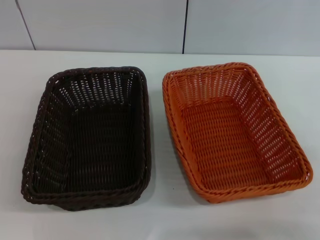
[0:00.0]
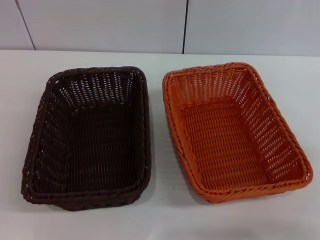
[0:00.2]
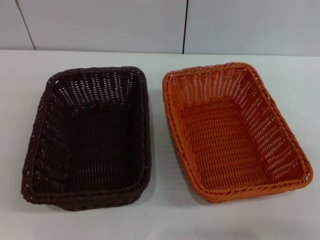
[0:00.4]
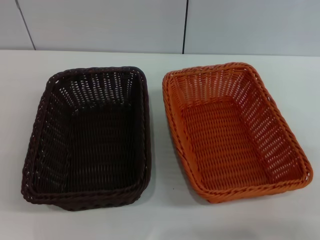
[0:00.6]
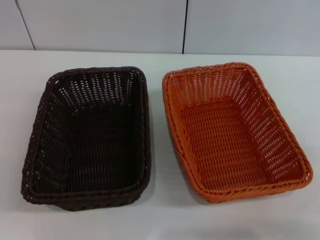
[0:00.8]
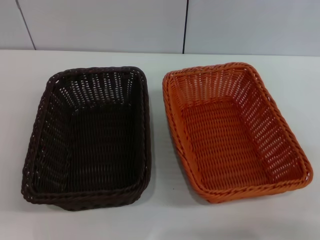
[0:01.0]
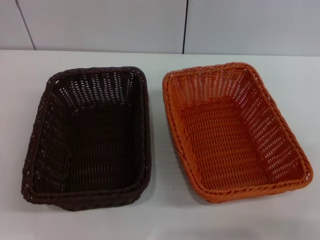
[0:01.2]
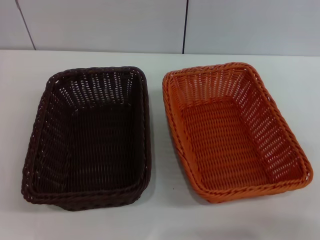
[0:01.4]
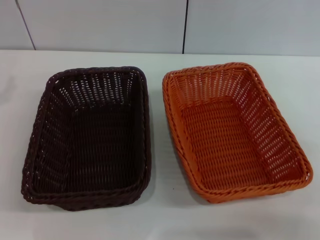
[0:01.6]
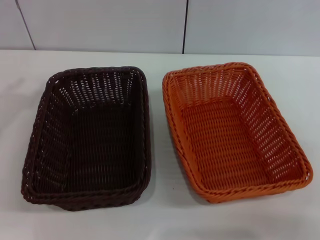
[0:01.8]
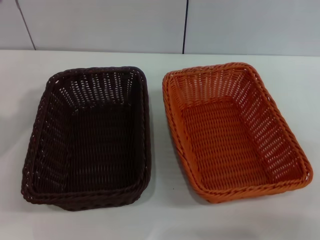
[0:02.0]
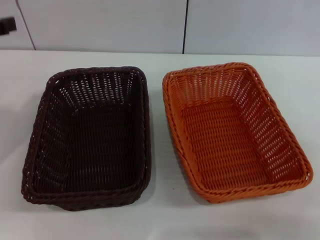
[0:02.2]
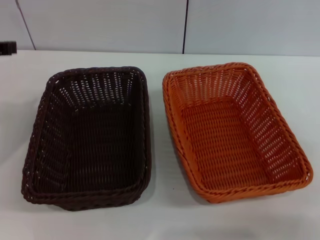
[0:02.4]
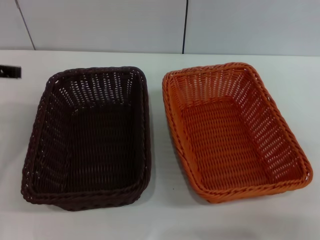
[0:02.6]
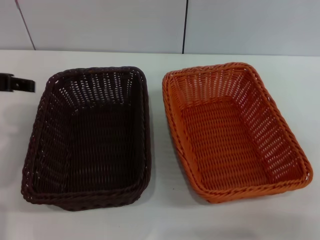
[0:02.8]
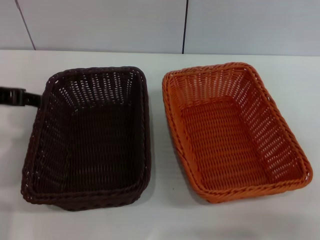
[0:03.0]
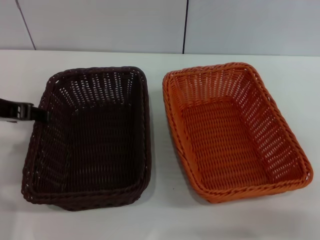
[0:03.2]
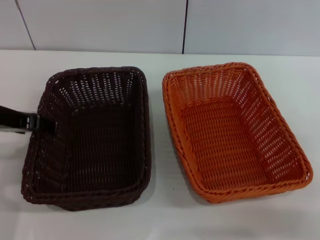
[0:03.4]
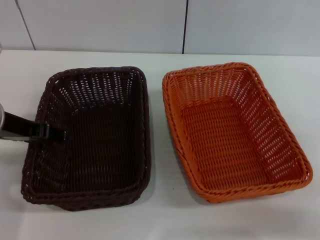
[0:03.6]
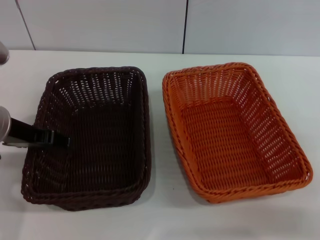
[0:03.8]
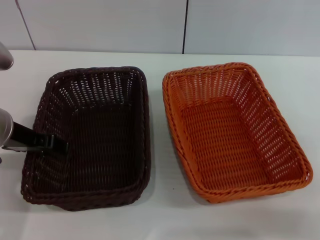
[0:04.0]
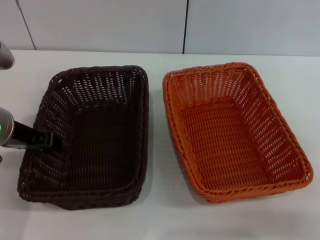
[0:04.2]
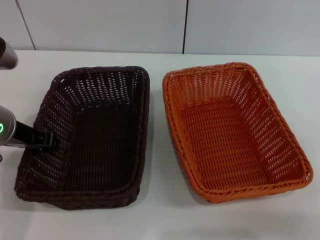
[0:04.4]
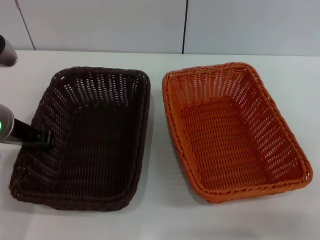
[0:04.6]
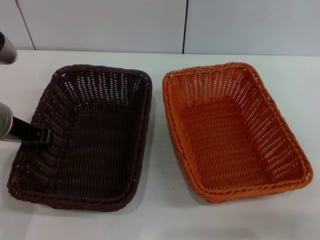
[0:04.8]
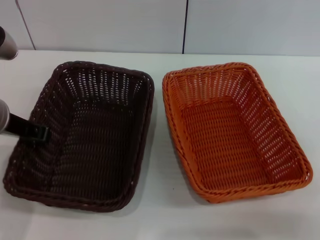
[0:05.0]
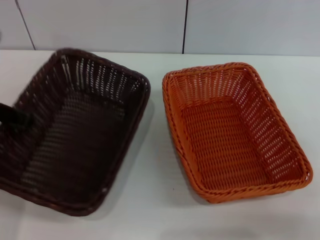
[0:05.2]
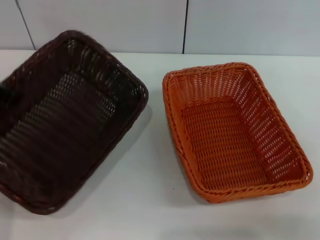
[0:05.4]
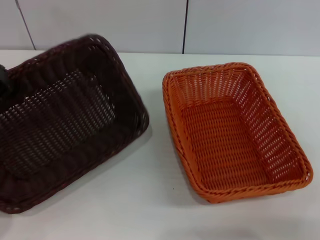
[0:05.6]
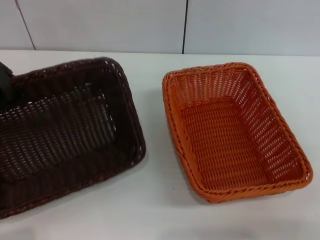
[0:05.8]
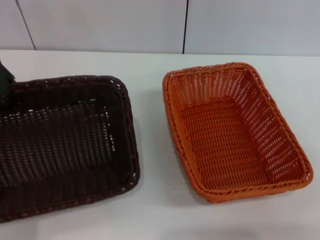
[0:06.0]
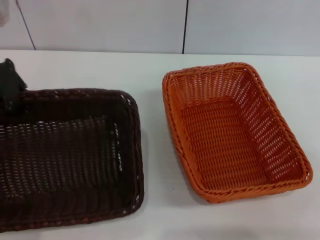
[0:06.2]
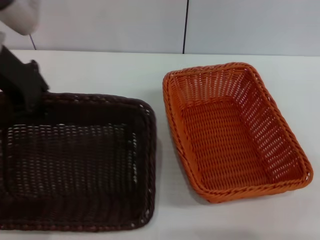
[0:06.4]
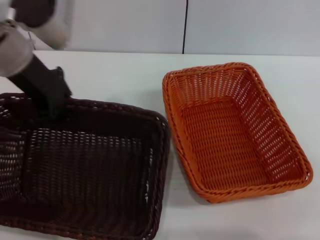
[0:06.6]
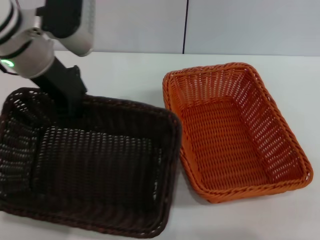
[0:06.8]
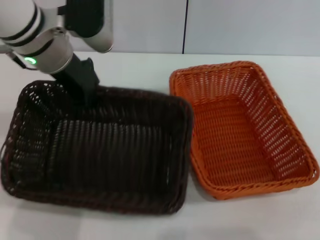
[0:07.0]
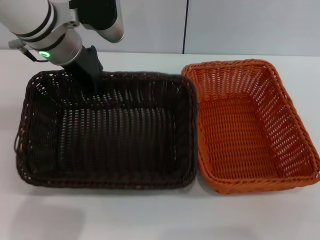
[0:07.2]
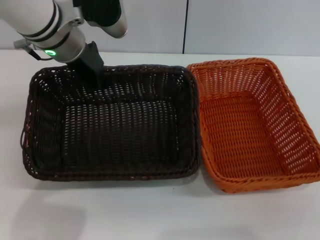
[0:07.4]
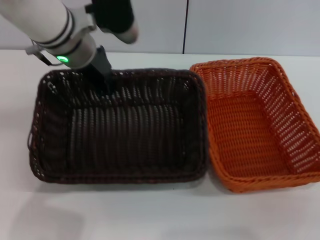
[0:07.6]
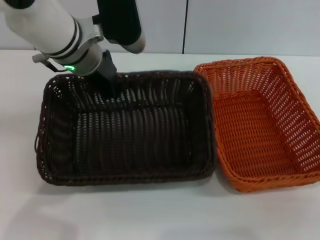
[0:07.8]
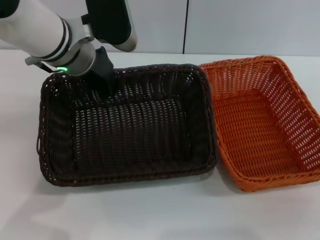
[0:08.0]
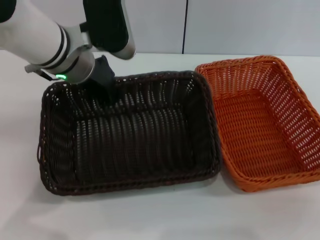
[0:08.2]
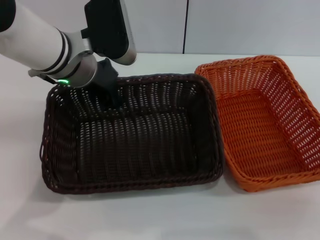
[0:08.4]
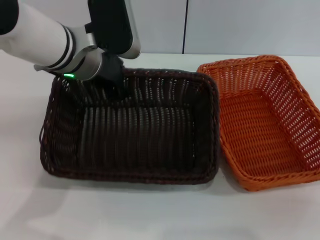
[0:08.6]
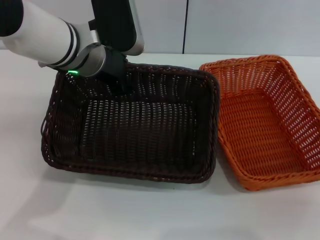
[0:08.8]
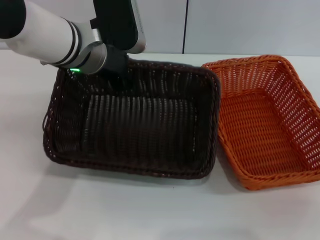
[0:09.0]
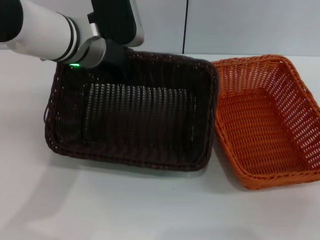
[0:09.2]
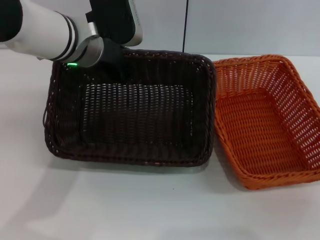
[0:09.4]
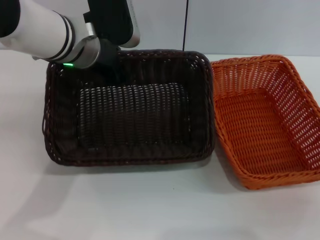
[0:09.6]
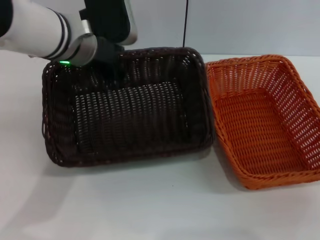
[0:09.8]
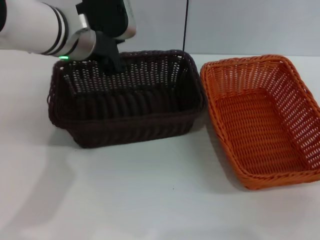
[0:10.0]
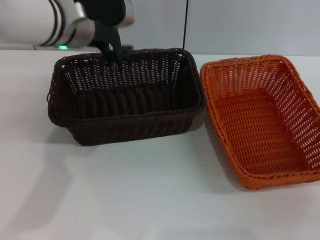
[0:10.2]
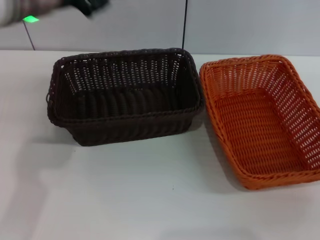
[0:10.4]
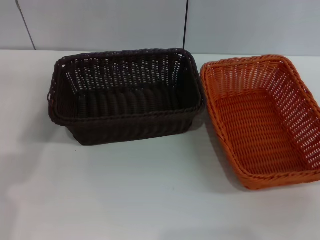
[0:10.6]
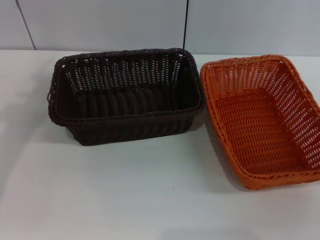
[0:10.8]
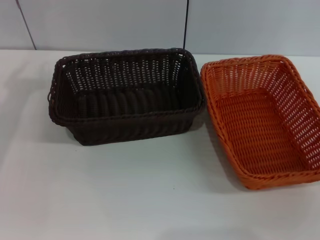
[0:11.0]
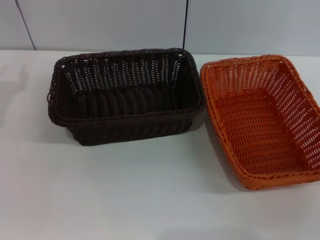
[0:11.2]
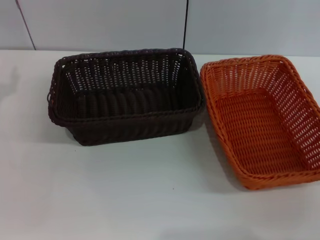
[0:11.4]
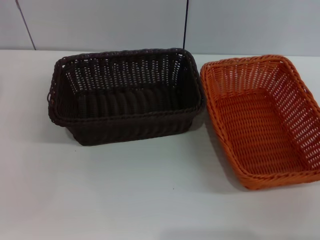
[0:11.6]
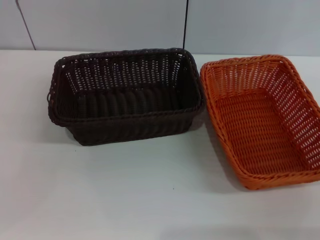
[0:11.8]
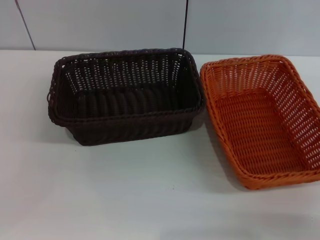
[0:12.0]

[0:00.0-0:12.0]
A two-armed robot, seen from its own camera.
Step, 0:00.0 to 0:05.2: Pick up the dark basket with the left gripper.
Step, 0:05.4 to 0:10.2: Place the dark basket in the center of view with the left gripper.
0:01.6 to 0:03.0: The left gripper shifts approximately 10 cm to the right.
0:03.0 to 0:04.4: The left gripper goes approximately 5 cm downward.
0:04.4 to 0:06.0: The left gripper heads upward, covering about 10 cm, and closes up.
0:06.0 to 0:07.6: The left gripper moves to the right, forward and downward, approximately 15 cm.
0:09.0 to 0:10.4: The left gripper is displaced upward and to the left by about 10 cm.
0:10.4 to 0:12.0: The left gripper is displaced to the left, backward and downward by some 30 cm.

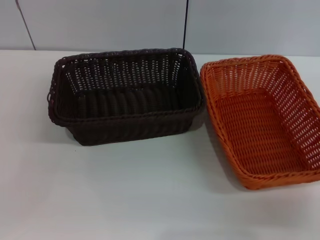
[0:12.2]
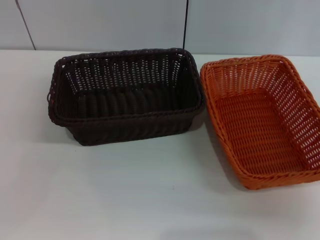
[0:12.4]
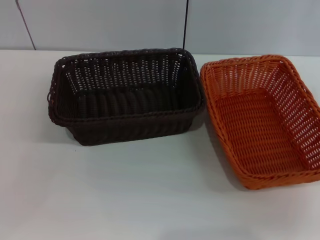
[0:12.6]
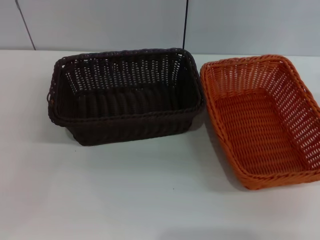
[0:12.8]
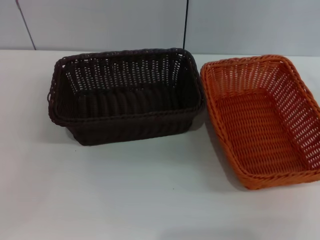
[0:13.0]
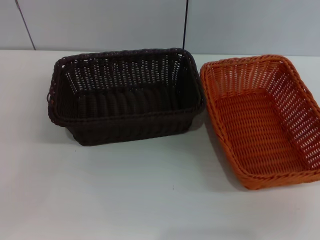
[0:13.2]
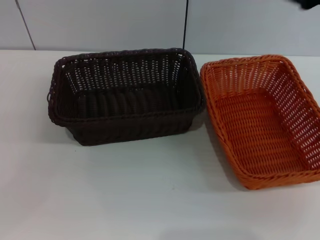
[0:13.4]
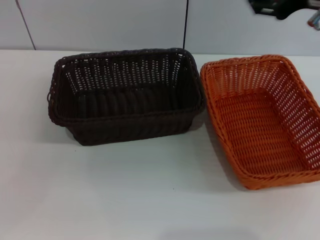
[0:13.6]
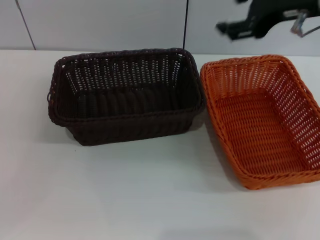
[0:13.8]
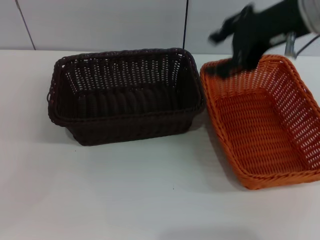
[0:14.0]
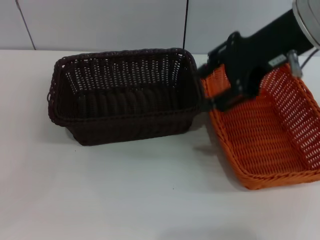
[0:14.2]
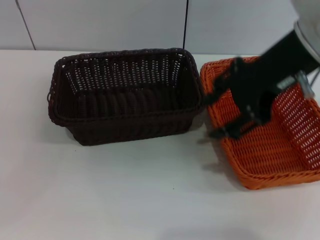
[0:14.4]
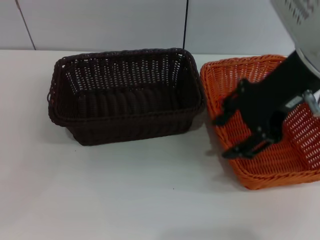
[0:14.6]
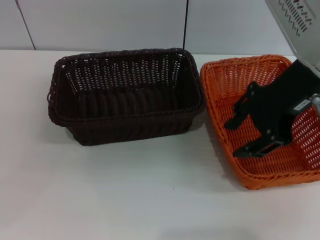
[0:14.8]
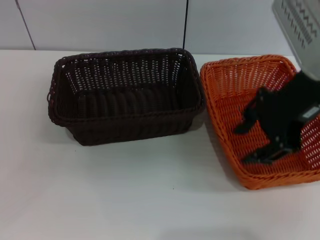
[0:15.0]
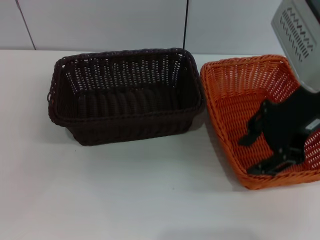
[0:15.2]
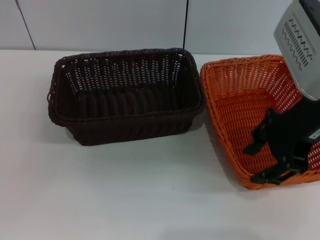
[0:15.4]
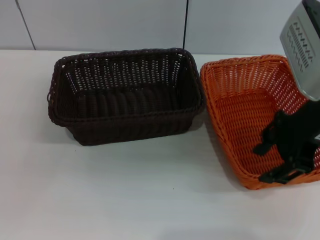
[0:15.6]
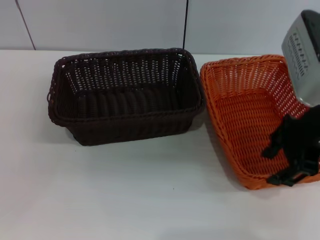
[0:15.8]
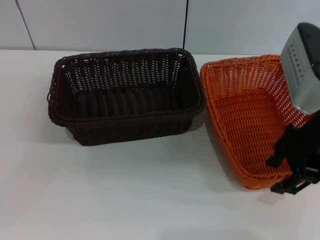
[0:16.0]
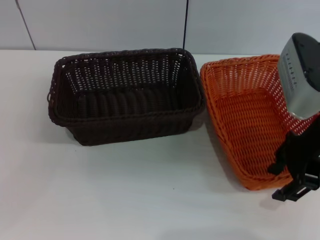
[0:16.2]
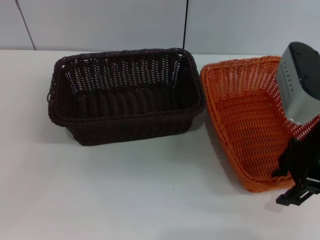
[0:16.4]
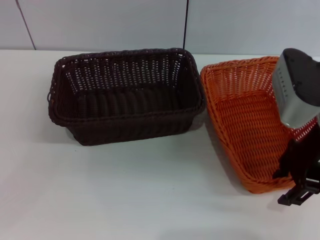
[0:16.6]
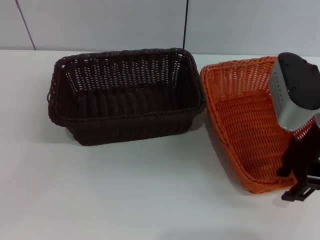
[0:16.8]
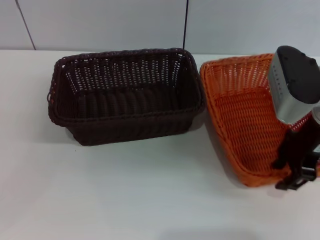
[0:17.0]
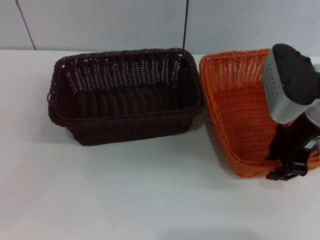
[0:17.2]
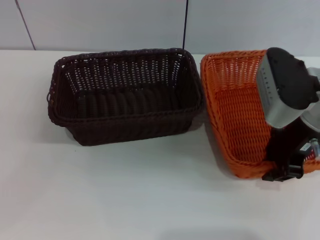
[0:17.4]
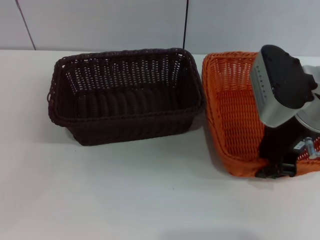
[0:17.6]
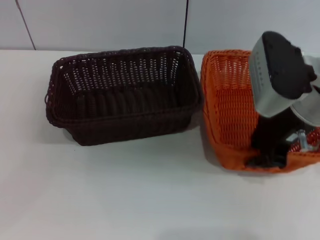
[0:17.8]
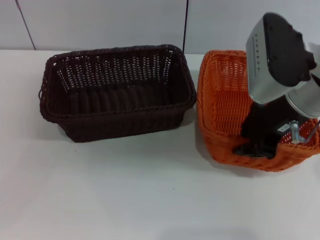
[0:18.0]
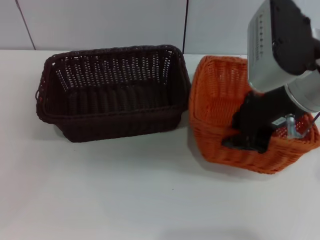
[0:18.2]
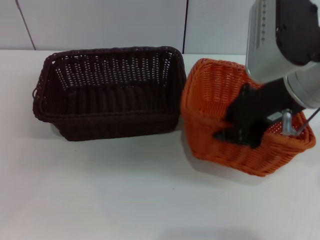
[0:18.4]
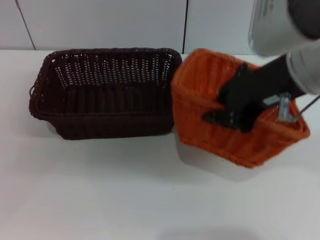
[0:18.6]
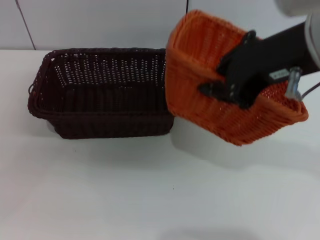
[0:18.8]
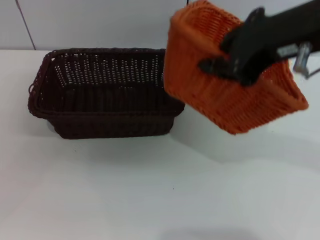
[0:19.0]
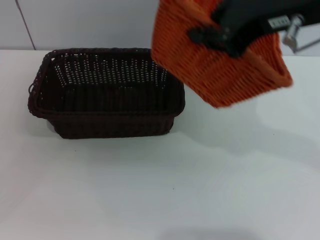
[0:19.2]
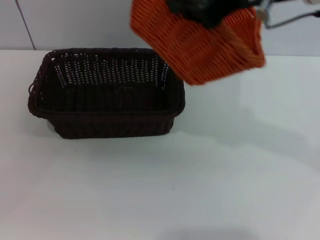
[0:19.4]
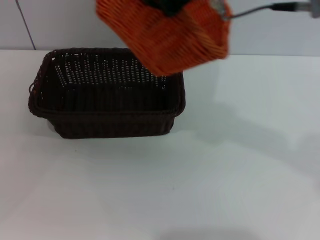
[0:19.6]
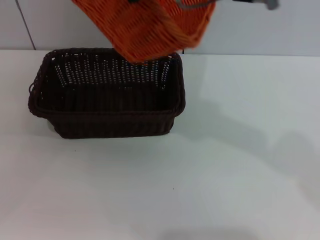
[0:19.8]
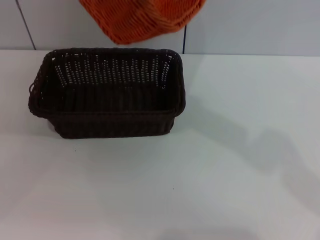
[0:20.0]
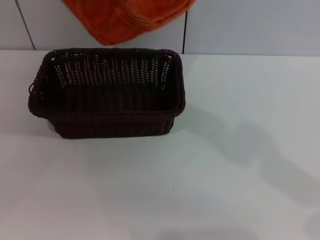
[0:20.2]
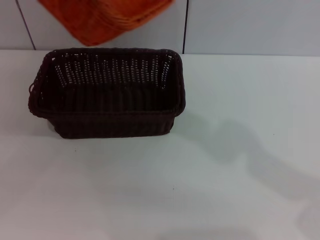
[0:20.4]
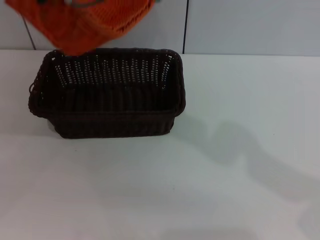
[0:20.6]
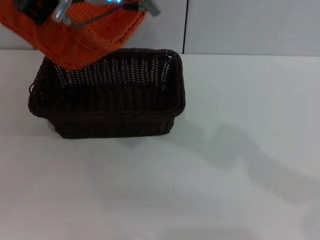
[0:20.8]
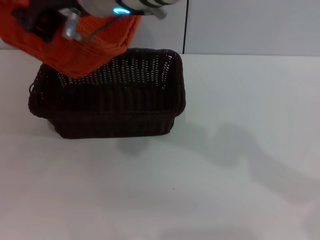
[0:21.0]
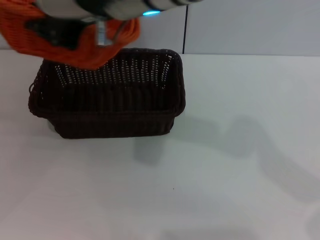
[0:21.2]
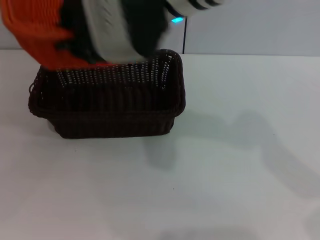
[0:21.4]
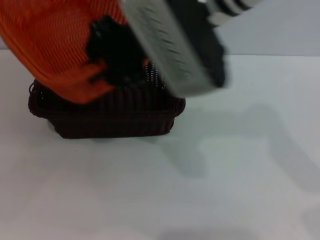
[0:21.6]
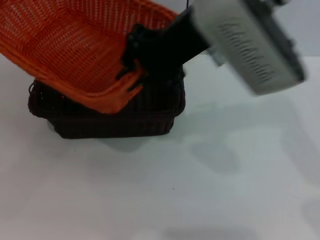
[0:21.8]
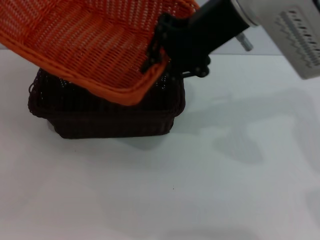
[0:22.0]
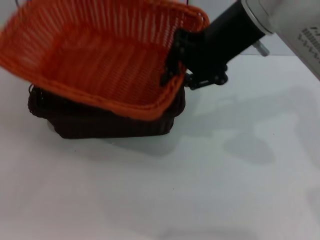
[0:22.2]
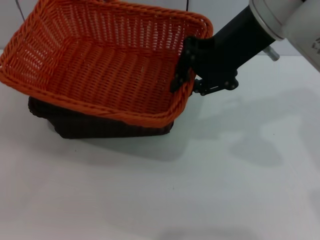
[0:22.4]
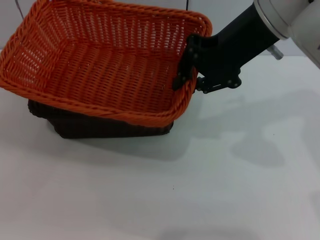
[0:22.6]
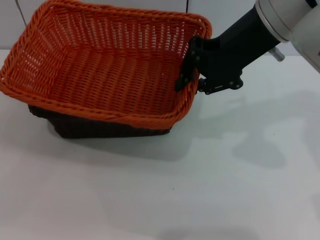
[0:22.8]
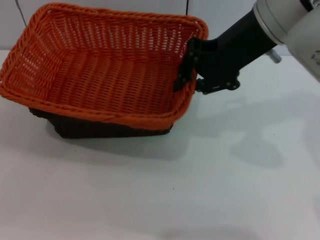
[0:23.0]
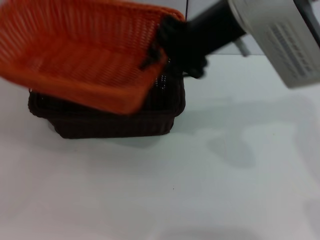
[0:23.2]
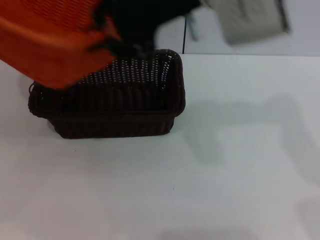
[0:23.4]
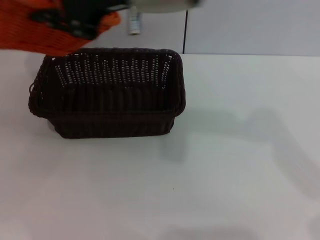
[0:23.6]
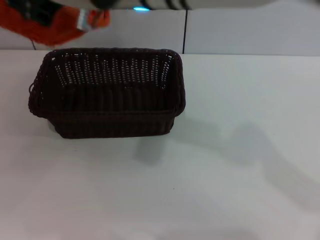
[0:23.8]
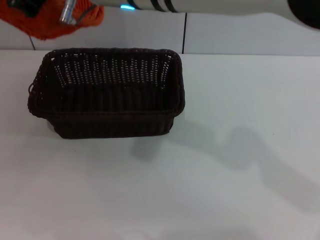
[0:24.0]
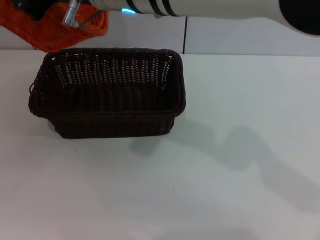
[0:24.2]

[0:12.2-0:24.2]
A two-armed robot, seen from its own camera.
Step, 0:12.2 to 0:18.2: Pick up the light basket with the right gripper.
0:12.2 to 0:13.8: The right gripper shifts about 25 cm upward, to the left and forward.
0:13.8 to 0:15.2: The right gripper is displaced backward by approximately 5 cm.
0:15.2 to 0:16.6: The right gripper travels downward by some 5 cm.
0:16.6 to 0:18.2: The right gripper changes place by roughly 5 cm, and closes.
0:18.2 to 0:19.8: The right gripper goes some 15 cm upward and to the left.
0:19.8 to 0:21.2: The right gripper travels to the left by approximately 10 cm.
0:21.2 to 0:22.6: The right gripper is displaced to the right by some 15 cm. The left gripper travels downward and to the right by about 10 cm.
0:22.6 to 0:24.2: The right gripper goes about 15 cm to the left, while the left gripper travels upward and forward by approximately 10 cm.
